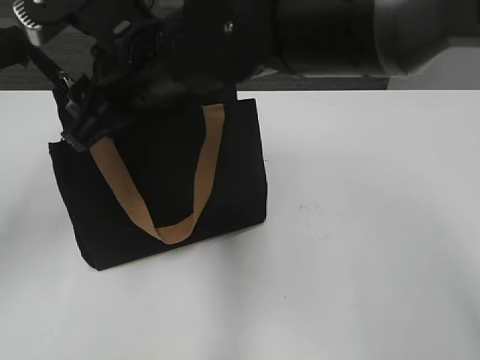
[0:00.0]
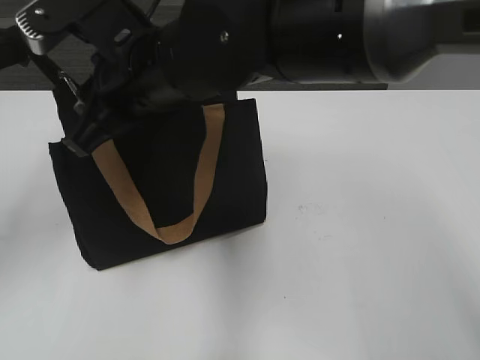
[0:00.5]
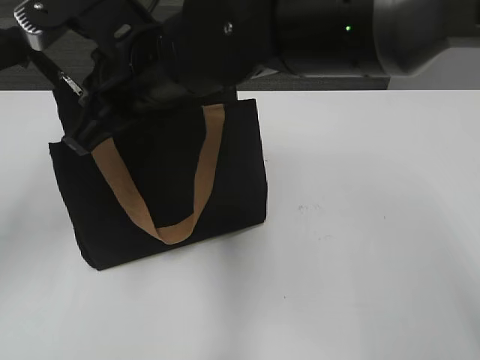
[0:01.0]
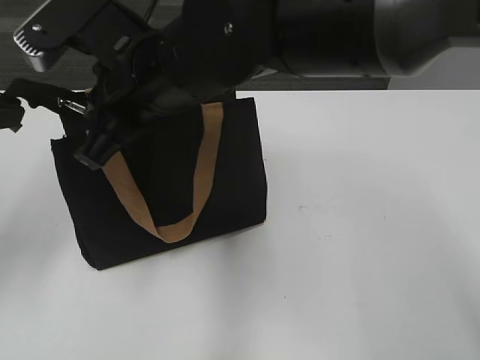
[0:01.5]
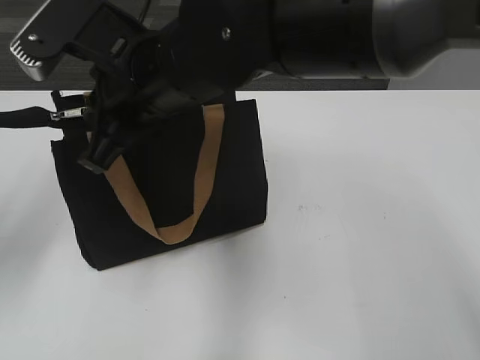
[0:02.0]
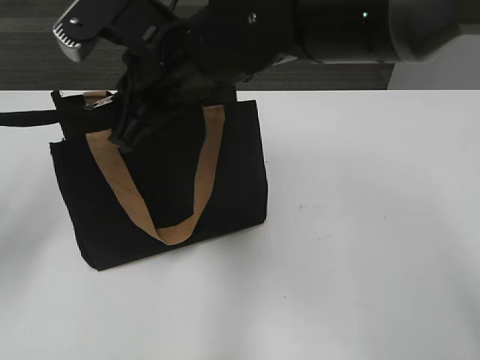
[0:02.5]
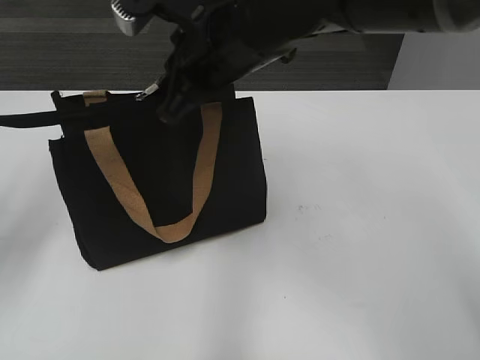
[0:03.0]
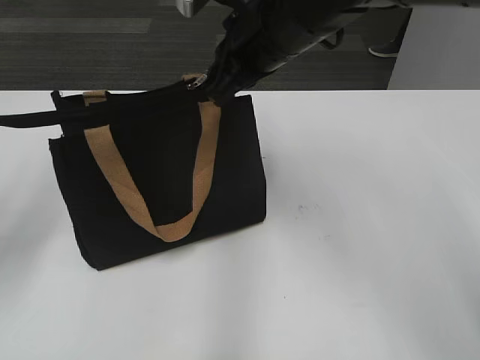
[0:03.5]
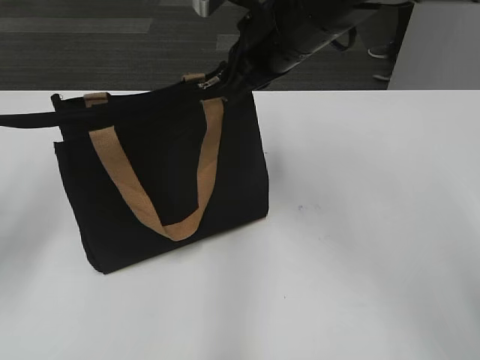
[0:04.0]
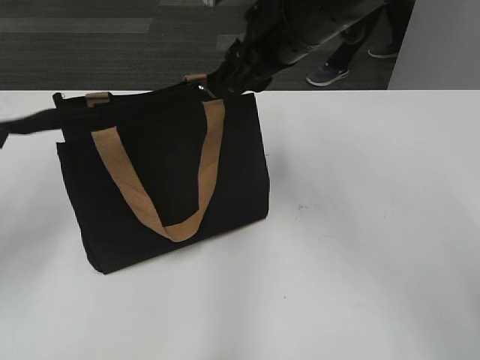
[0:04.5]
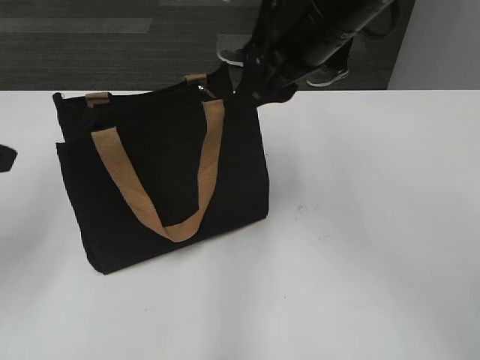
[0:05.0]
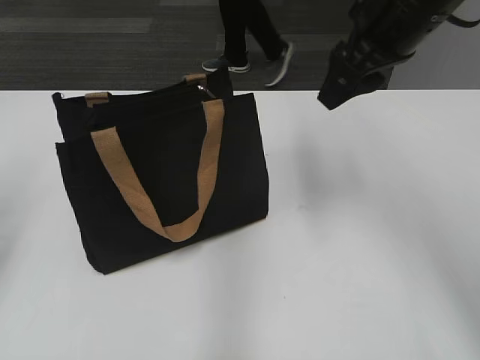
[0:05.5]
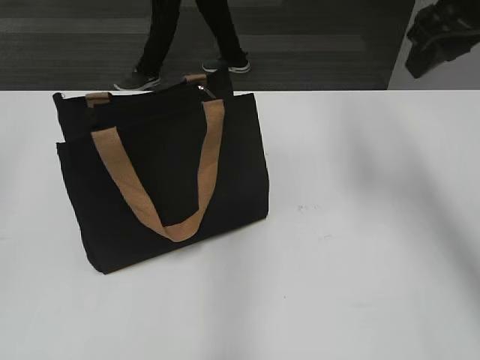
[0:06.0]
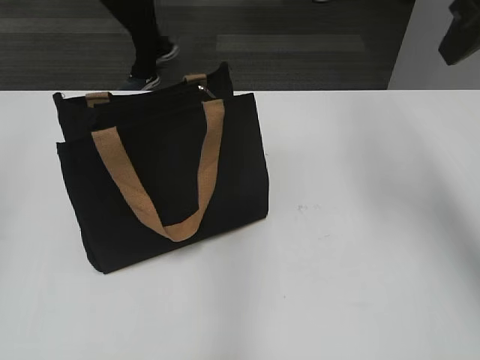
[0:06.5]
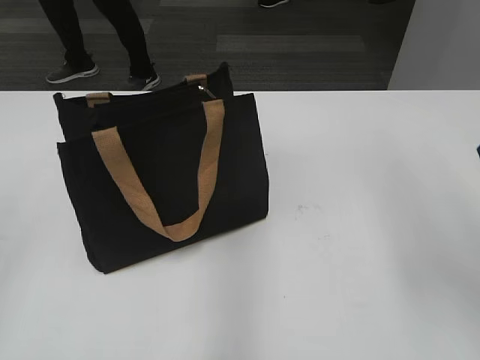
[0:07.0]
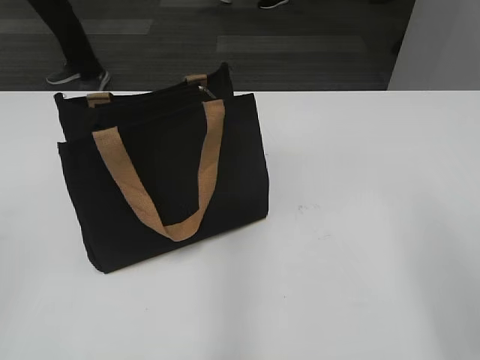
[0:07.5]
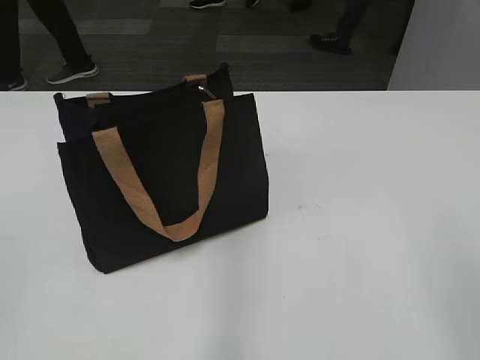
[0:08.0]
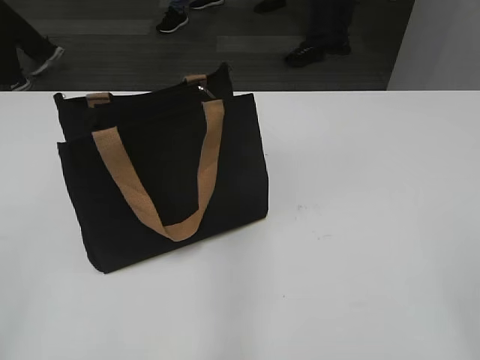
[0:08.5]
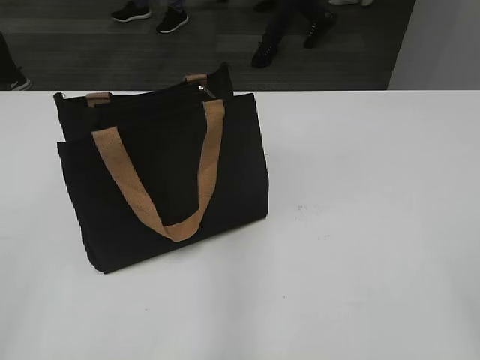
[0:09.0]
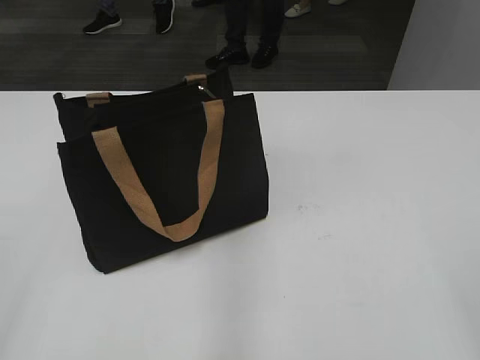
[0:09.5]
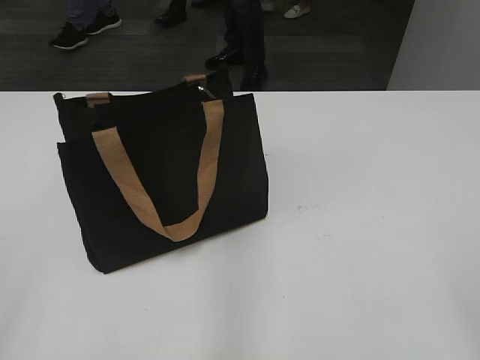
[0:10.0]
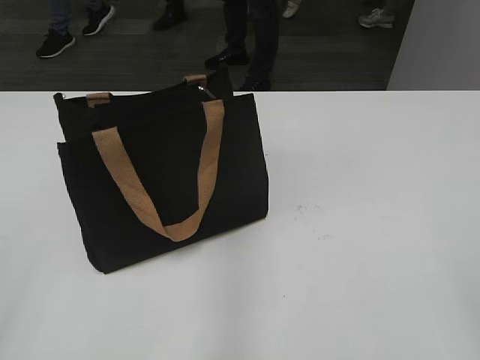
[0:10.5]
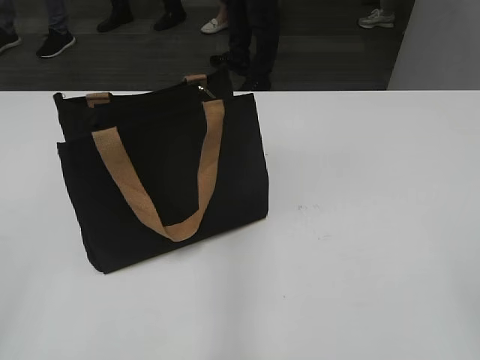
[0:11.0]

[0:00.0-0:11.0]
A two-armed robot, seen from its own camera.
Step, 0:00.0 to 0:04.5: Zip up the bag with your right hand.
0:02.0 to 0:03.5: The right gripper shifts about 10 cm to the right and forward.
0:03.5 to 0:05.5: The left gripper opens. Meanwhile the right gripper shifts approximately 10 cm to the right, and opens.
0:05.5 to 0:07.5: The right gripper is displaced backward and to the right by some 25 cm; the left gripper travels backward by about 15 cm.
0:07.5 to 0:09.0: The right gripper travels backward by roughly 10 cm. Meanwhile the left gripper goes roughly 5 cm backward.
0:09.0 to 0:11.0: There are only small adjustments of the grippers.

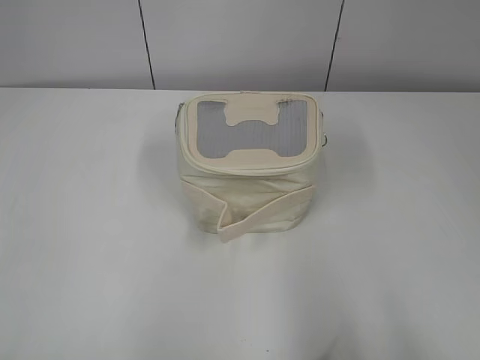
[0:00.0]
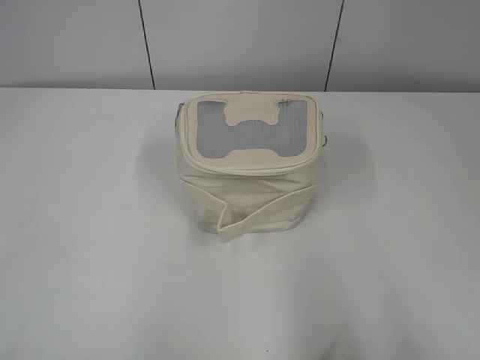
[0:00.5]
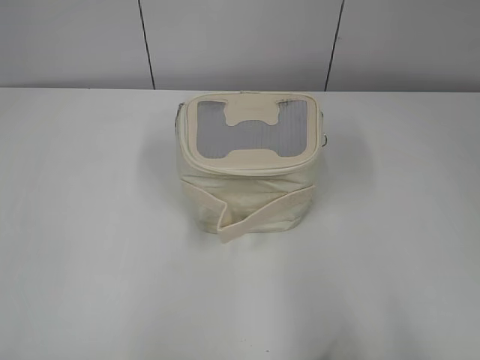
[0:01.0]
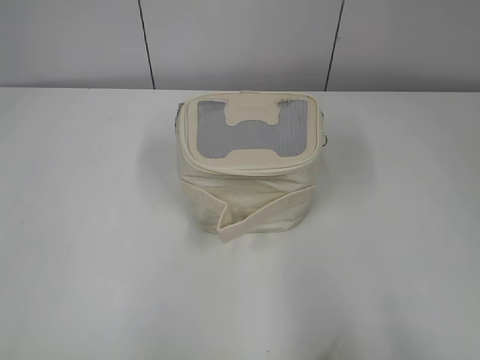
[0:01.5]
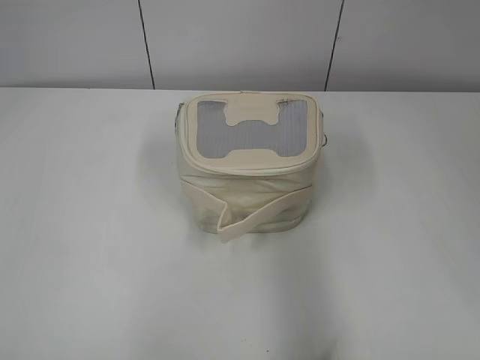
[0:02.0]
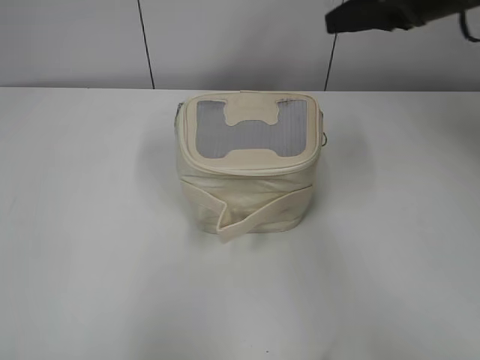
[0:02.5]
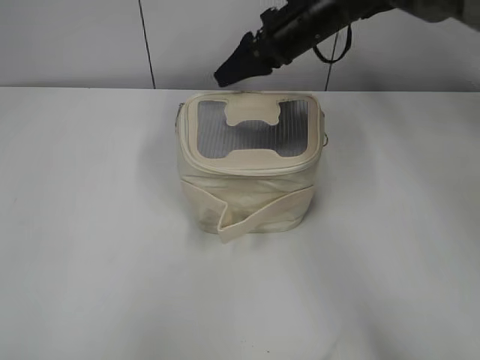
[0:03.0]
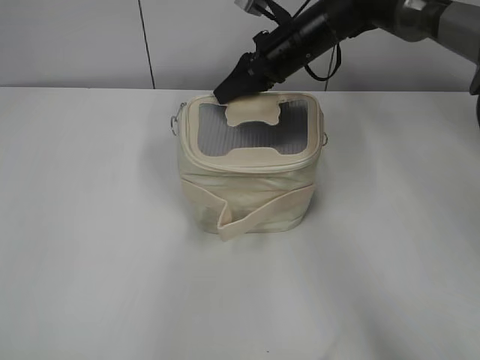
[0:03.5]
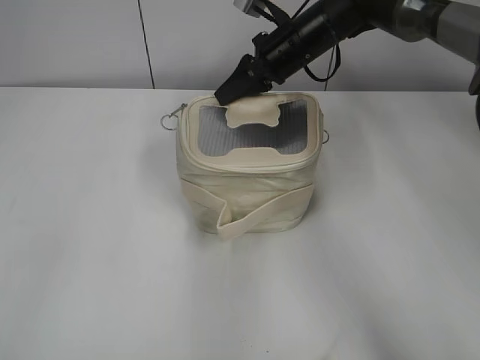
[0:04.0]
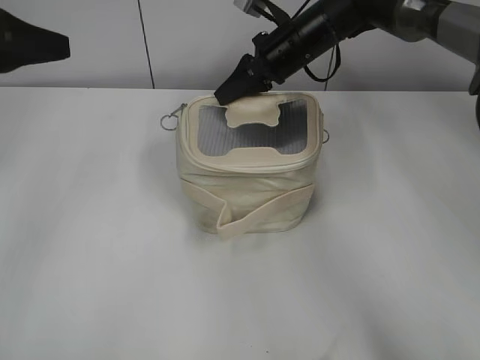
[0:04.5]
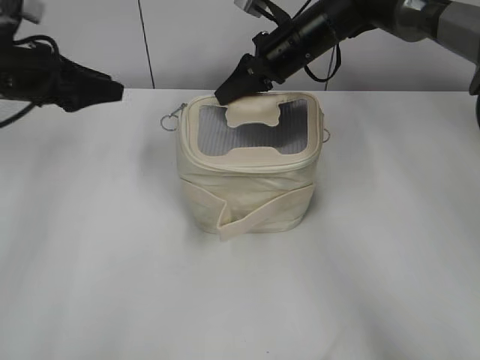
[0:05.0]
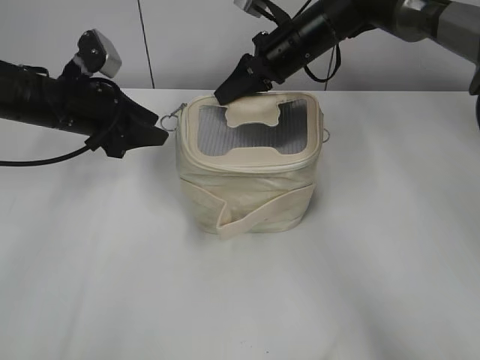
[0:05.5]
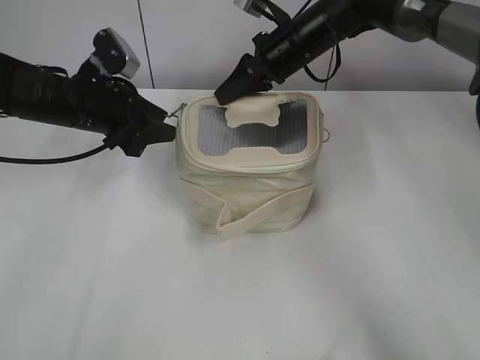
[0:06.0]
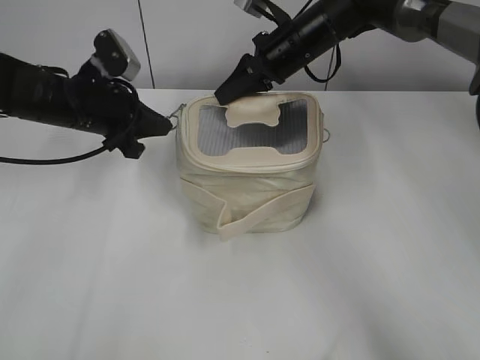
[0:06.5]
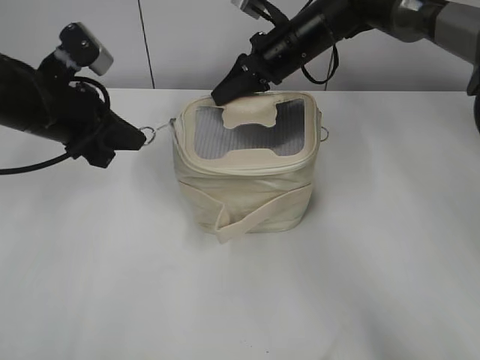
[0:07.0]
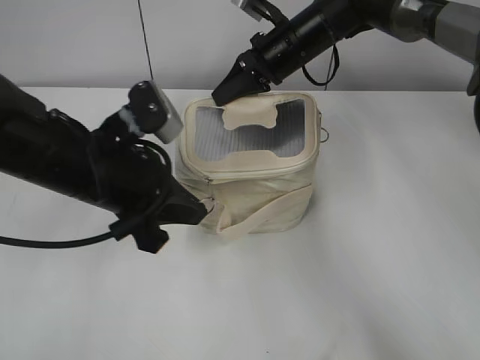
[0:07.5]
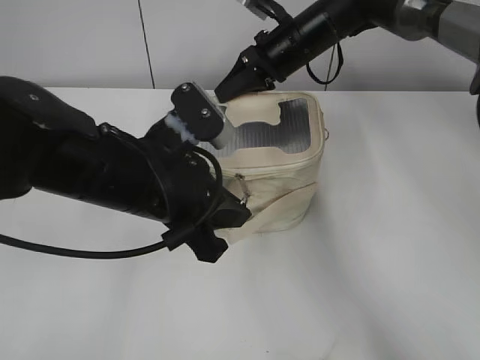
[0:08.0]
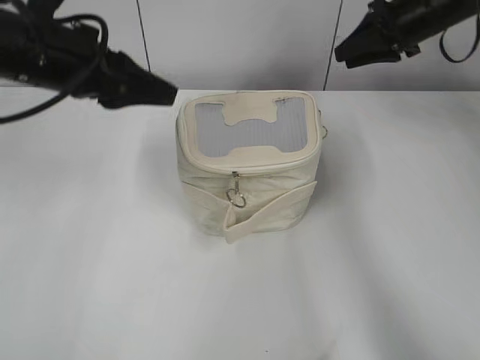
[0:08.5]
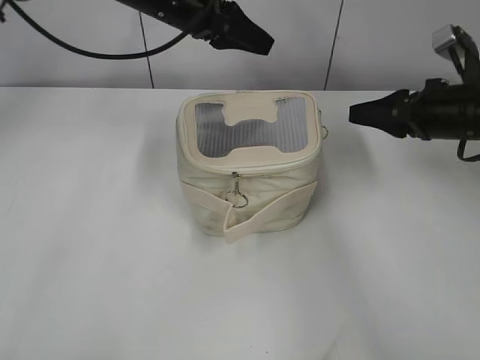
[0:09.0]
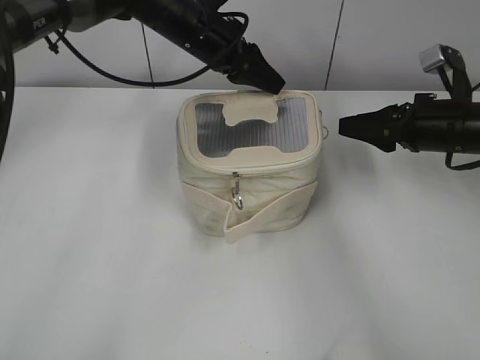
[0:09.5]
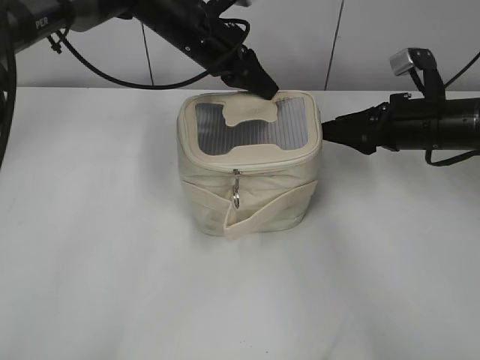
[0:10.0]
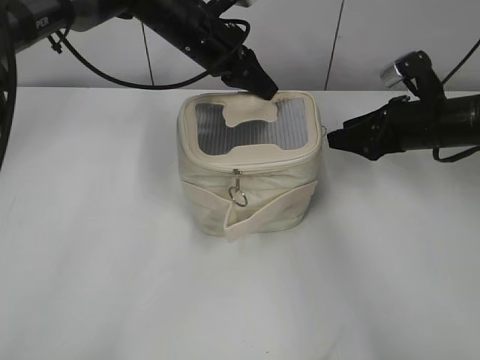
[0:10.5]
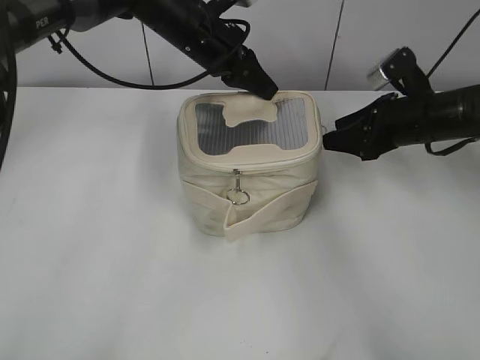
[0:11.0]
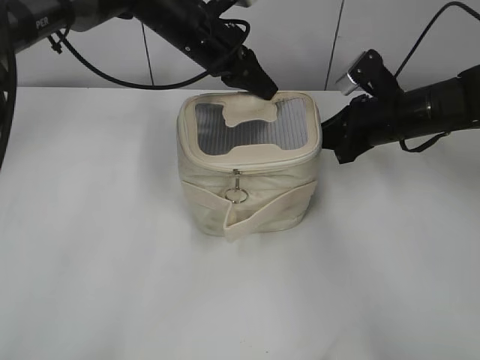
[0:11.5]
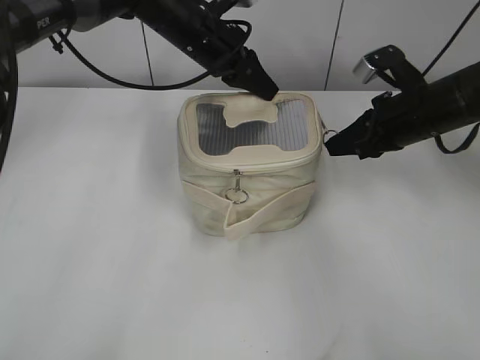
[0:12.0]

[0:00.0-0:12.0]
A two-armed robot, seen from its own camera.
Step, 0:00.0 to 0:08.0: Zip up the bag with your left hand.
0:02.0 to 0:04.0: The right gripper shifts roughly 40 cm forward and to the left, and closes its fingers; the left gripper heads forward, covering about 15 cm.
0:04.0 to 0:06.0: The left gripper is displaced forward, downward and to the right by roughly 30 cm.
0:06.0 to 0:08.0: The left gripper is displaced backward and to the right by approximately 20 cm, and closes up.
0:08.0 to 0:10.0: The left gripper moves forward, about 25 cm, and opens, then closes again. The right gripper moves to the right and backward, approximately 20 cm, and opens its fingers.
0:10.0 to 0:12.0: The right gripper closes up.

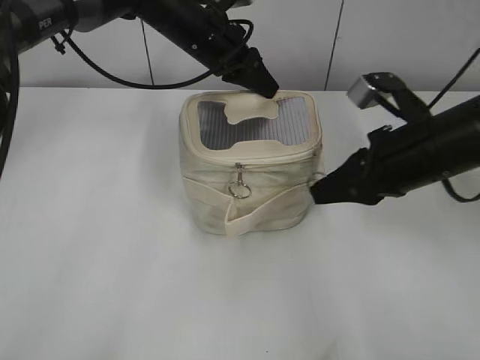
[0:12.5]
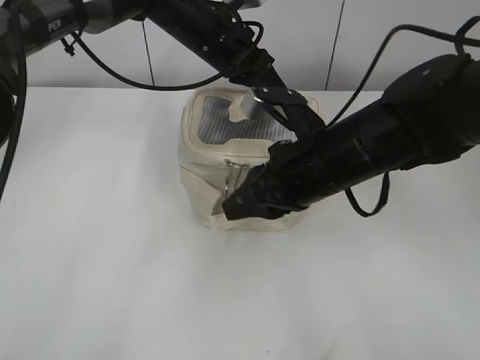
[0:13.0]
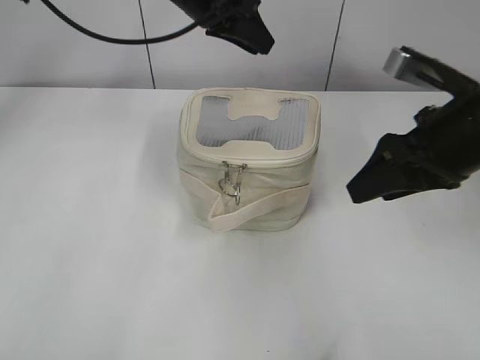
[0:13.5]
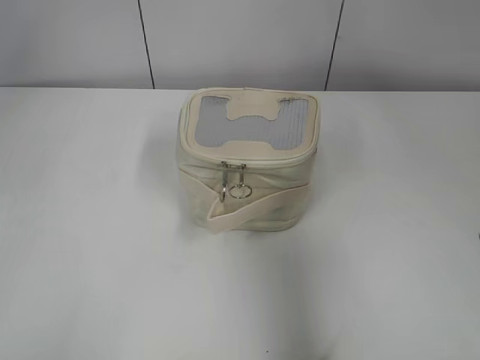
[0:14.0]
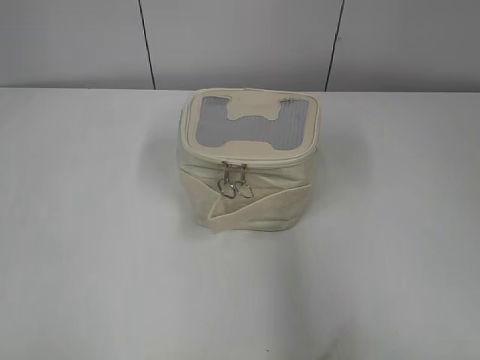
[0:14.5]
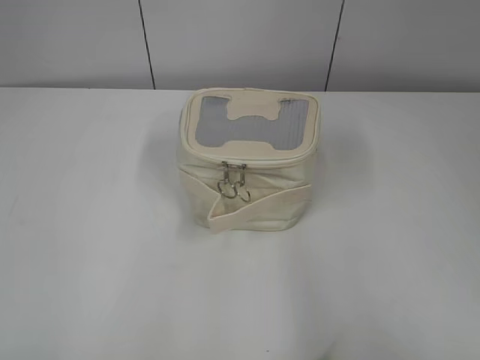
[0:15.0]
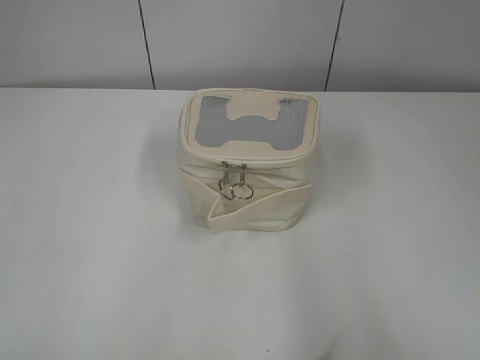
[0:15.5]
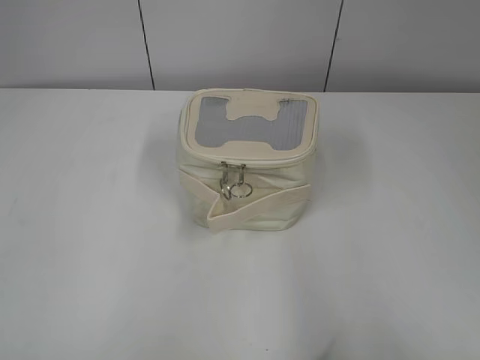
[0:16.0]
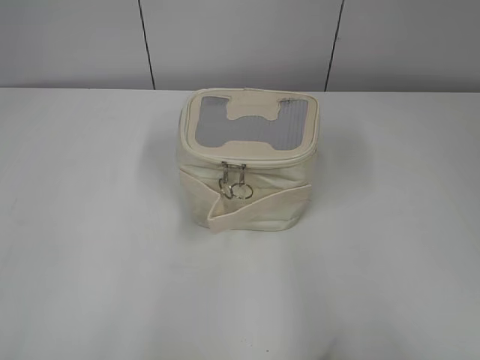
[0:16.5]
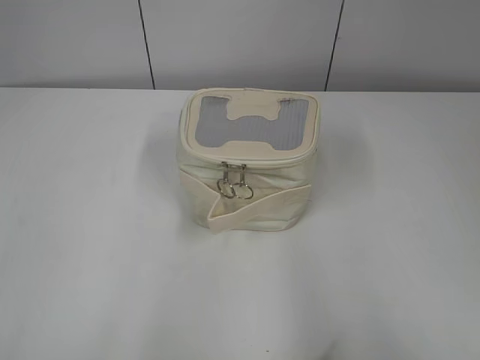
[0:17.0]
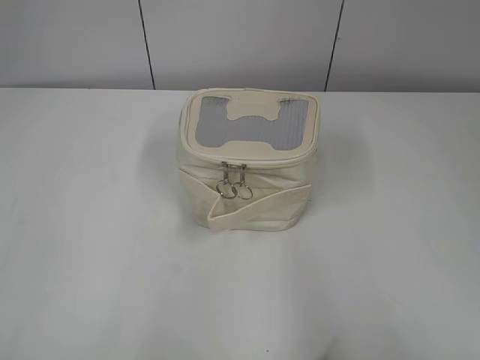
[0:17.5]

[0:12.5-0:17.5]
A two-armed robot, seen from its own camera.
0:12.5 to 0:15.0: The left gripper heads backward and to the left, covering some 50 cm, and opens; the right gripper is displaced backward by about 30 cm, and opens.
